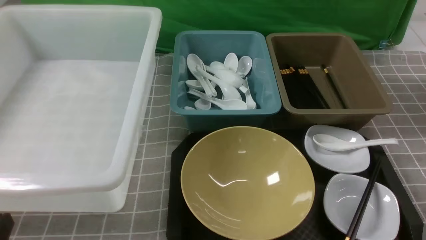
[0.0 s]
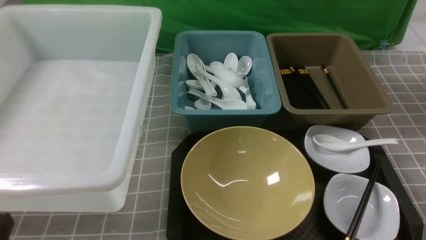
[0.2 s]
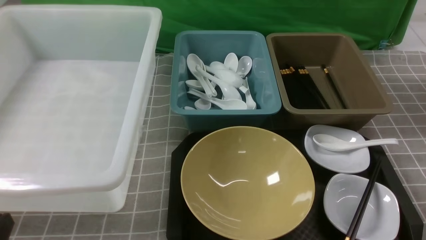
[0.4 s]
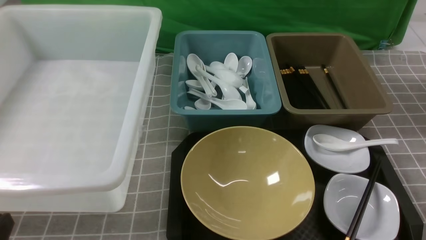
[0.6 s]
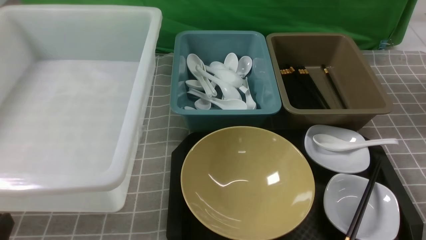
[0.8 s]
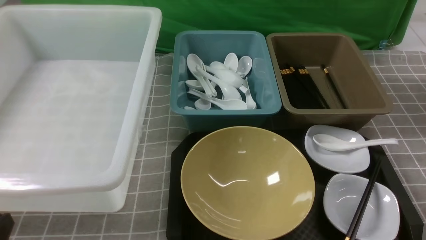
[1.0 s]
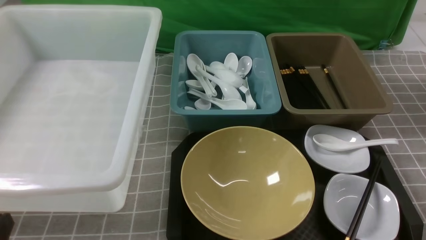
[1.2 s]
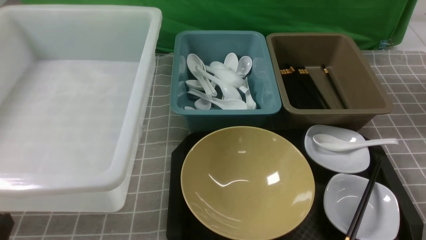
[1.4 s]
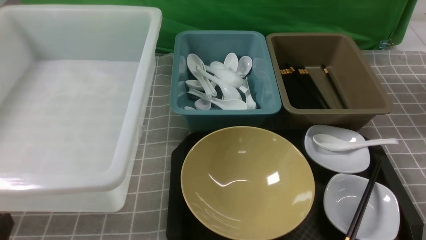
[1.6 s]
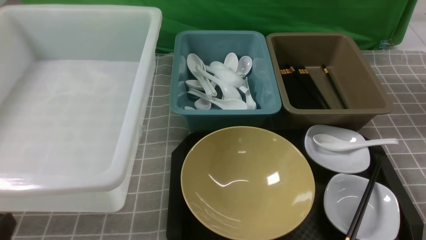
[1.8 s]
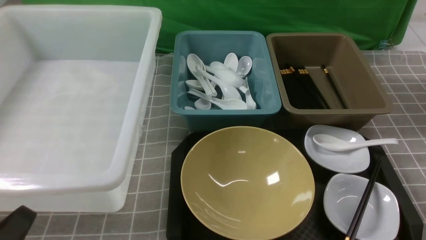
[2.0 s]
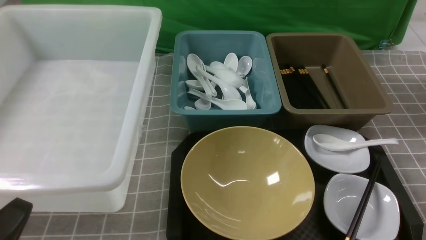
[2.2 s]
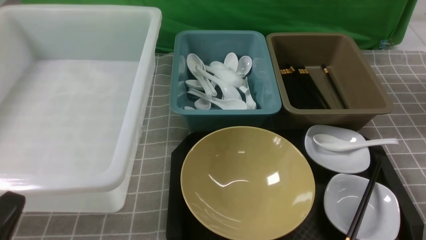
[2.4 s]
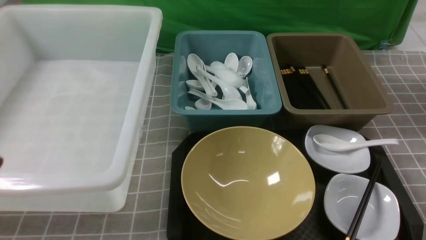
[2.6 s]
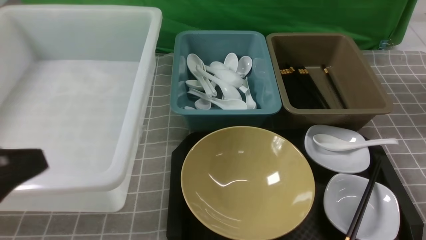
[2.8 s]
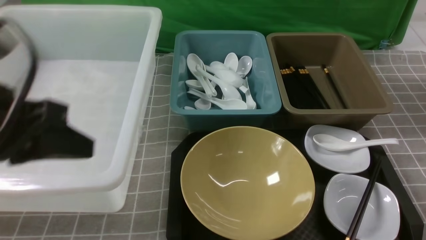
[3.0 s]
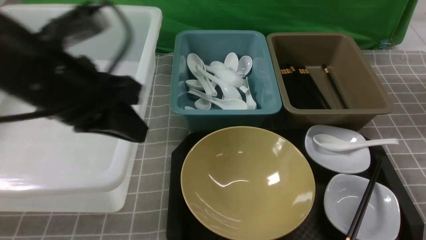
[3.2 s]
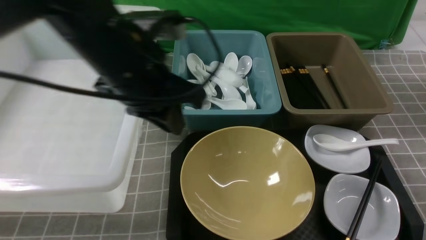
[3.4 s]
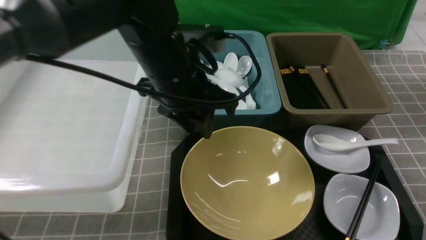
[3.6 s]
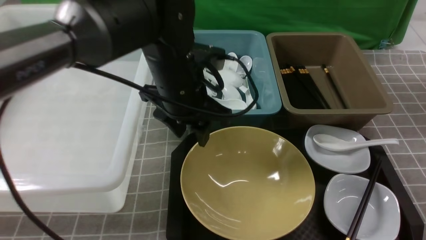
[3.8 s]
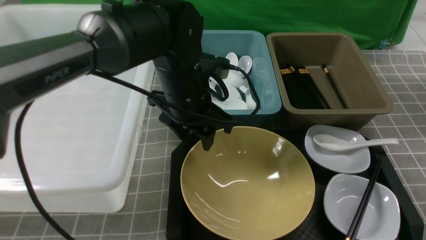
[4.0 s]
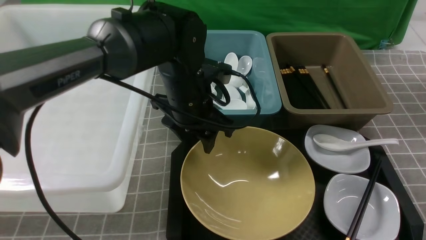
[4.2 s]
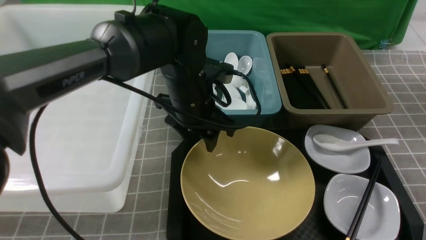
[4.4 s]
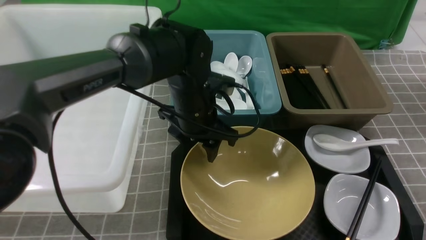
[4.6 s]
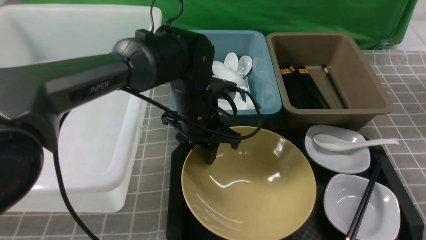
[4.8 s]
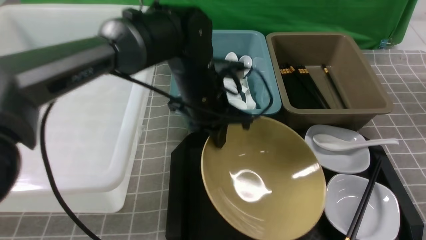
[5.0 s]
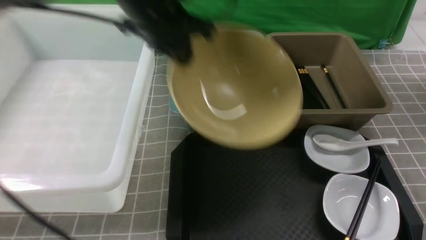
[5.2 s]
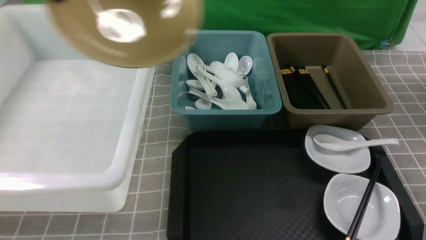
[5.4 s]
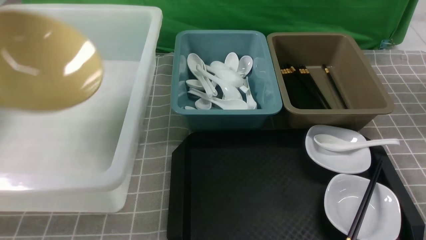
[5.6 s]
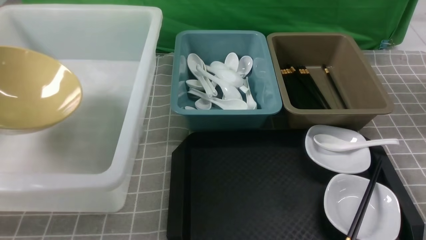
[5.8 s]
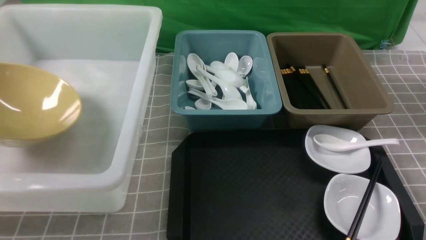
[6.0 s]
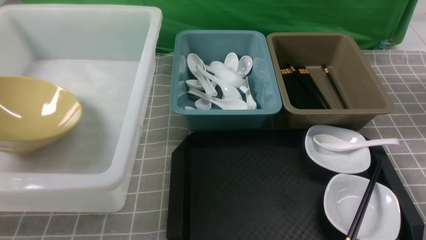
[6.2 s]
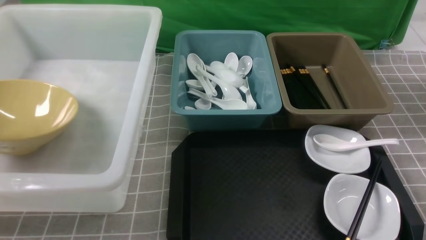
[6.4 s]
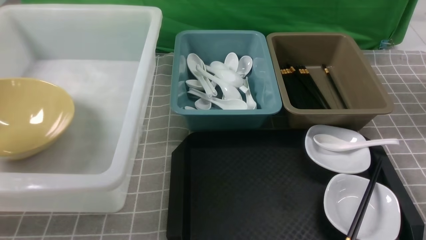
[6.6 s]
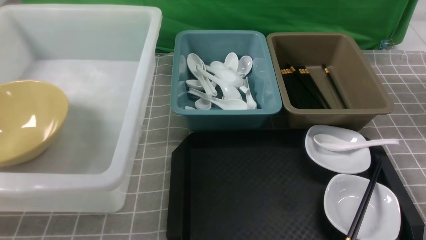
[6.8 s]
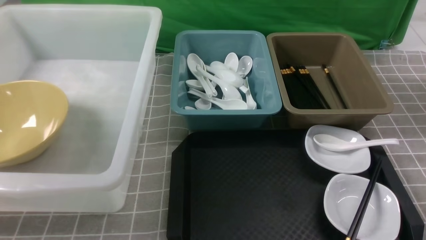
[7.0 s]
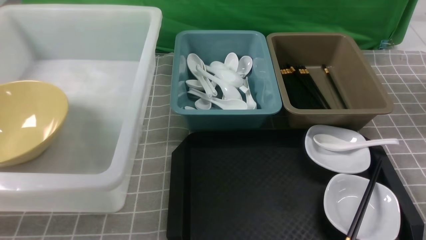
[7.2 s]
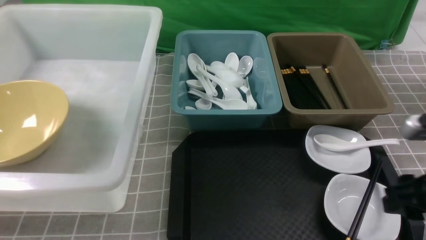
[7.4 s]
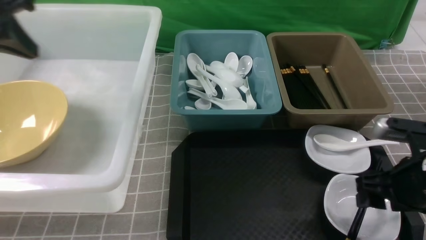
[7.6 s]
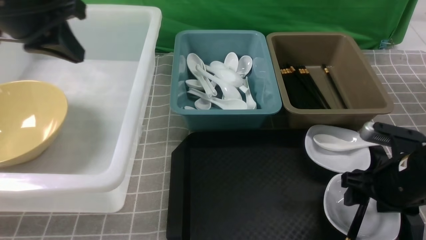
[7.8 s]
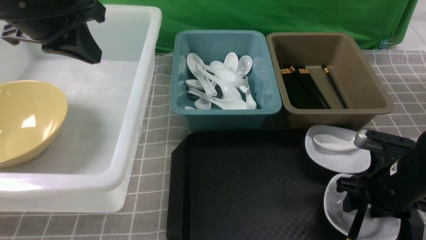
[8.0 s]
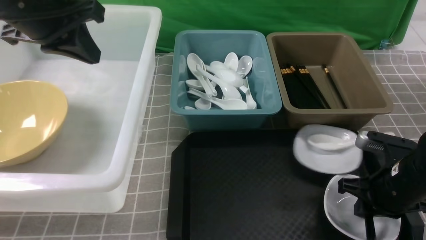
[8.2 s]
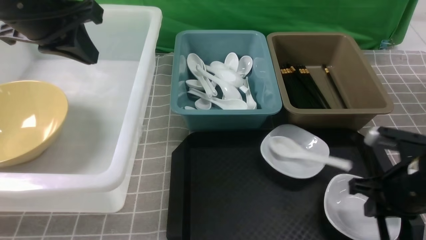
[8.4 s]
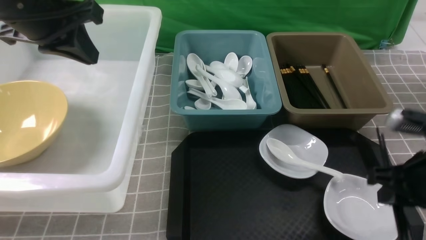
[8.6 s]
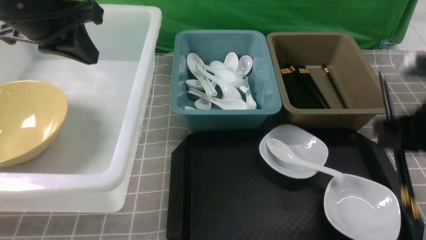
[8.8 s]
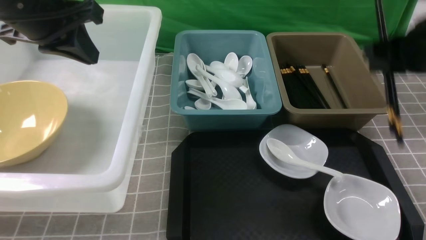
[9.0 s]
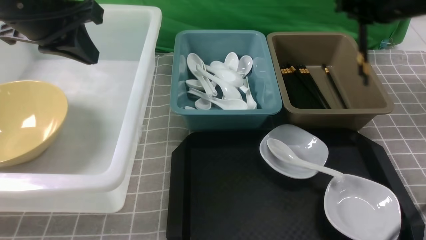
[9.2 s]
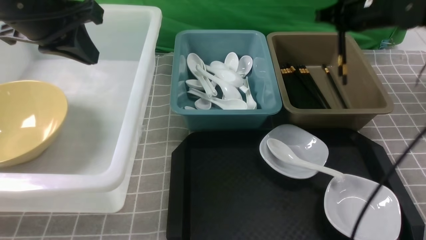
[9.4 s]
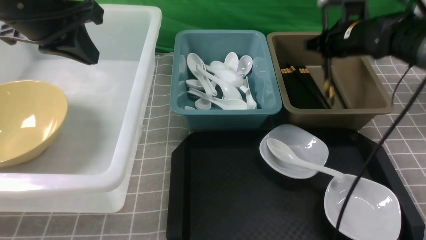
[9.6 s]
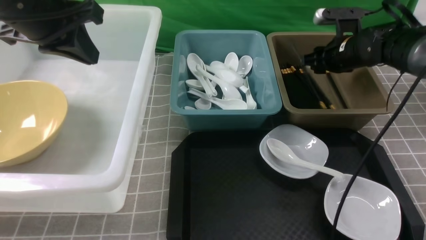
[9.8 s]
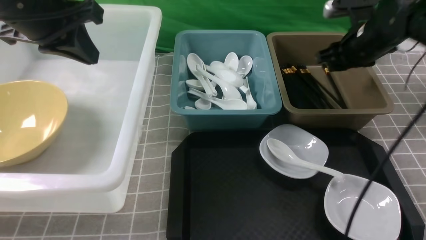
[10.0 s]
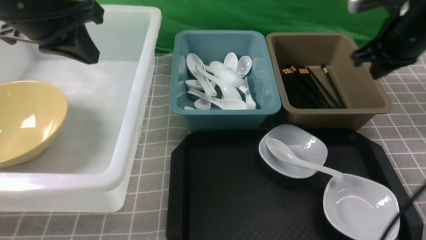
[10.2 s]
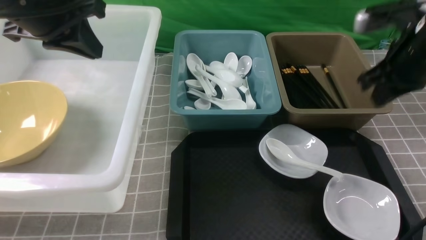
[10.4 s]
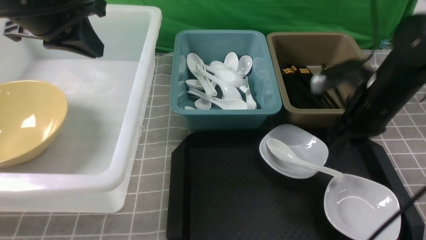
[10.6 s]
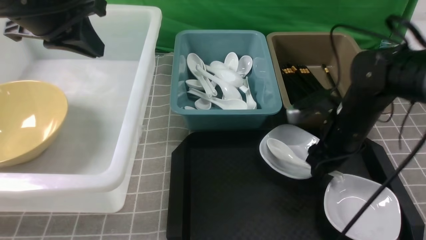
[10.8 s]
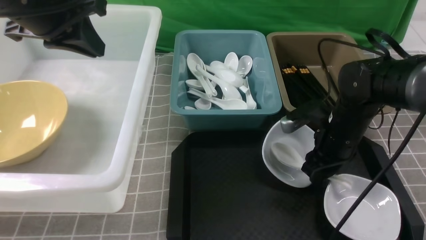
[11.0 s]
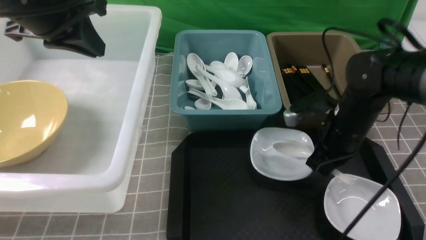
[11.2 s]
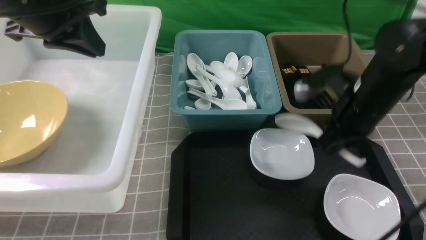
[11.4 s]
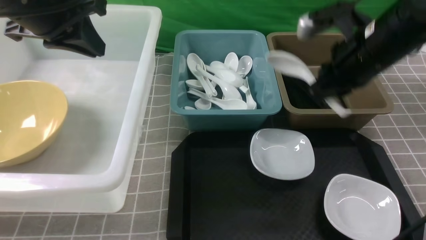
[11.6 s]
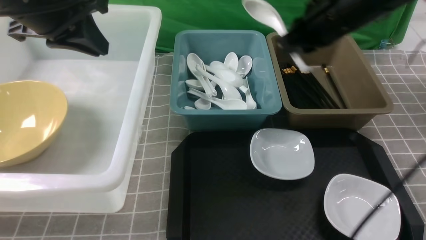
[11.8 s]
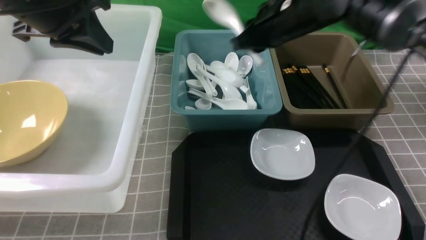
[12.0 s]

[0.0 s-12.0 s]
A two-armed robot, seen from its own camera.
Task of the whole recording: on grey table put chopsticks spoon bowls plates into blue grey white boxes.
Step, 0.0 to 5.0 s: use the left arm to grab the yellow noodle bowl on the left.
Step, 5.2 to 7.0 s: use the left arm to put the noodle bowl into the large storage box on the left.
Step, 7.2 to 8.6 s: use the right arm to grab the chopsticks.
Step, 9.0 to 9.8 s: use the right arm to put the chopsticks into the small storage box on the right.
Step, 10.0 to 11.2 s: use the right arm to grab the soup spoon in the middle.
0.0 to 1.6 s: Both grippers stay about where they are.
1.6 to 3.0 s: The left gripper moves upward and forward, about 20 cm.
3.0 to 4.4 s: The left gripper travels forward, to the right and downward by about 30 cm, and opens its fingers.
4.4 to 6.0 s: The left gripper goes roughly 40 cm to the left, and closes up.
6.0 to 7.6 s: The right gripper is displaced forward and downward by approximately 15 cm, and opens. The left gripper moves to the right and upward, about 15 cm, and opens, then closes again.
7.6 to 9.0 s: The left gripper goes about 5 cm to the right; the right gripper is displaced upward and forward by roughly 15 cm, and closes its fingers.
9.0 to 10.4 s: The right gripper is displaced downward by roughly 5 cm, moves some 15 cm forward and comes back, and opens and closes again.
10.4 to 12.0 s: The right gripper moves to the left and forward, approximately 15 cm, moves roughly 10 cm downward and comes back, and opens and closes again.

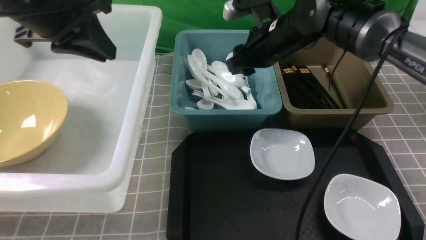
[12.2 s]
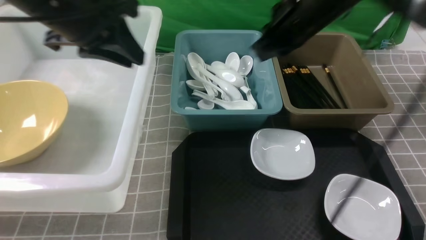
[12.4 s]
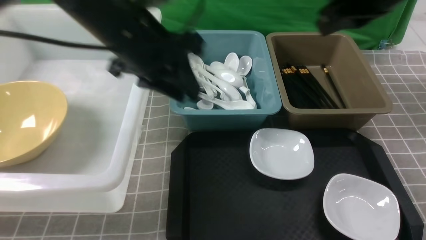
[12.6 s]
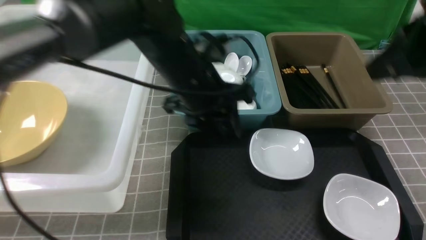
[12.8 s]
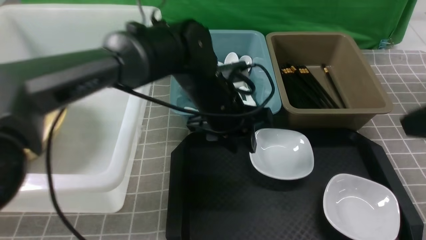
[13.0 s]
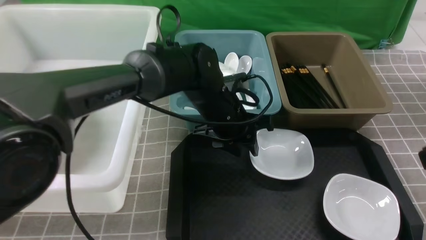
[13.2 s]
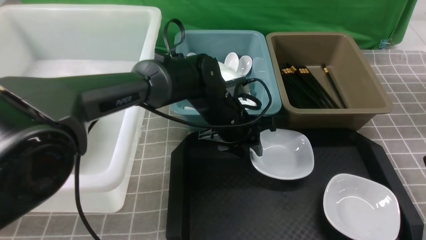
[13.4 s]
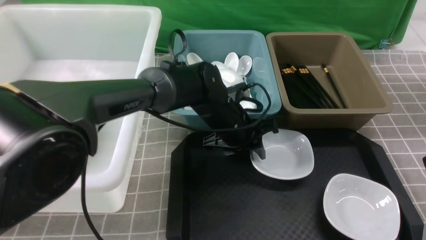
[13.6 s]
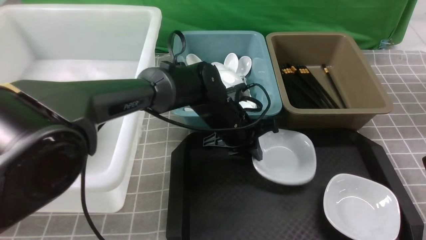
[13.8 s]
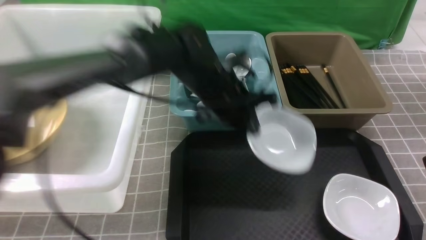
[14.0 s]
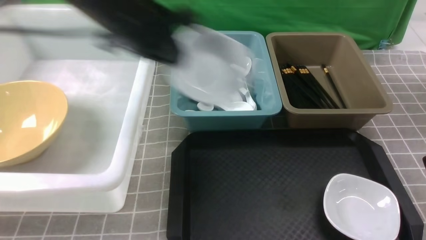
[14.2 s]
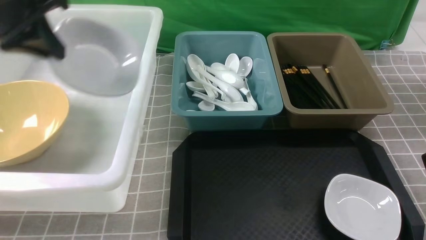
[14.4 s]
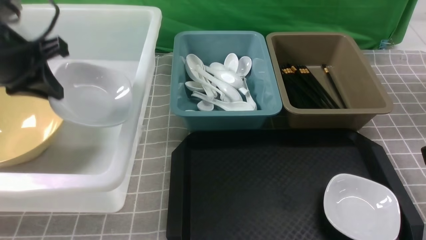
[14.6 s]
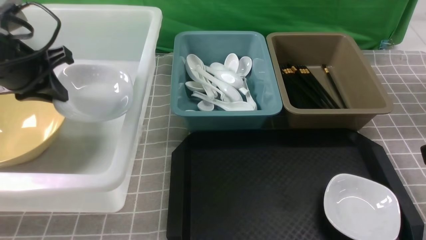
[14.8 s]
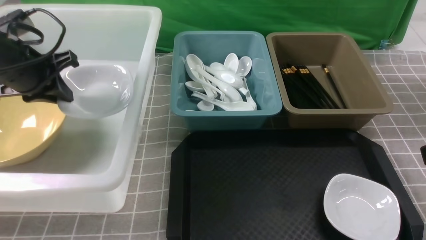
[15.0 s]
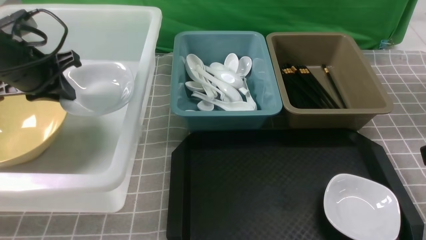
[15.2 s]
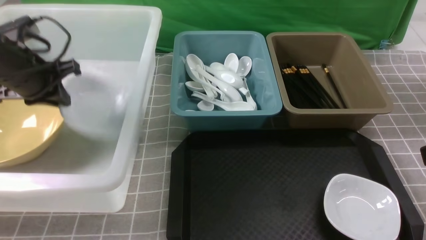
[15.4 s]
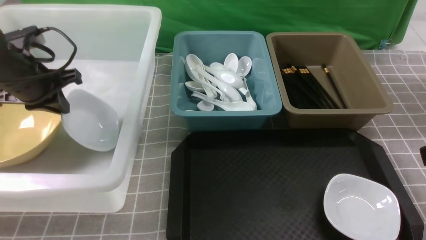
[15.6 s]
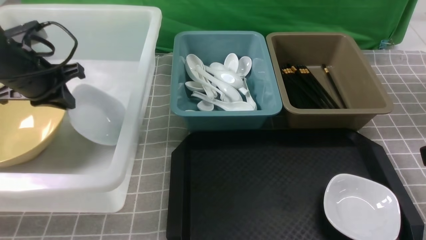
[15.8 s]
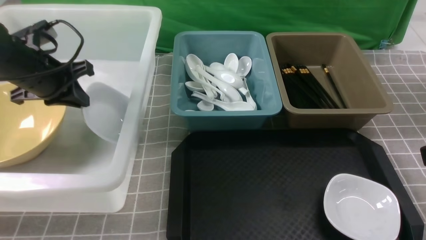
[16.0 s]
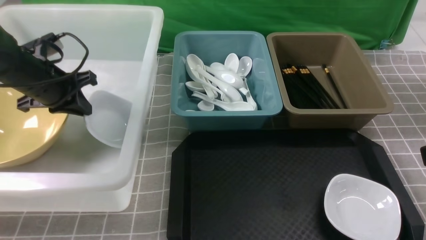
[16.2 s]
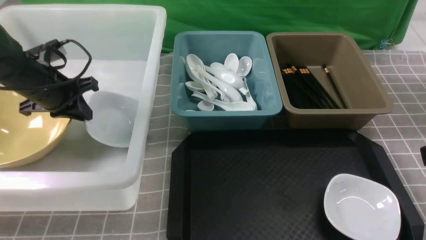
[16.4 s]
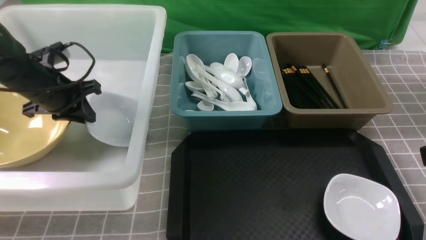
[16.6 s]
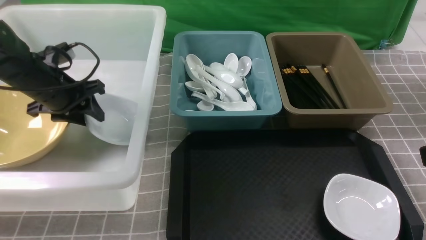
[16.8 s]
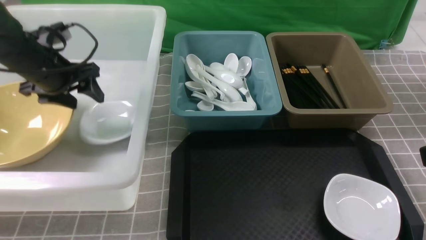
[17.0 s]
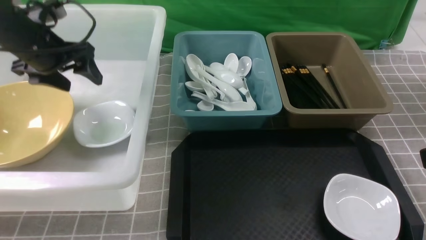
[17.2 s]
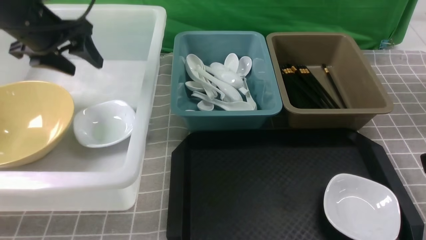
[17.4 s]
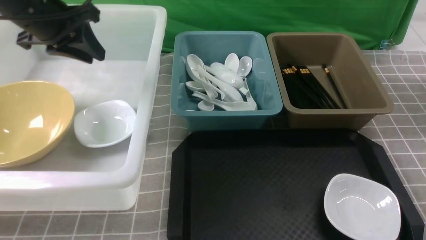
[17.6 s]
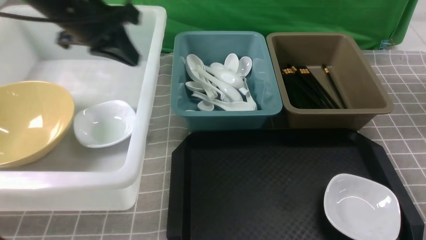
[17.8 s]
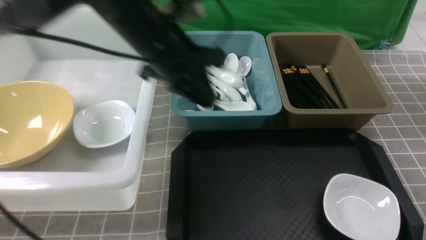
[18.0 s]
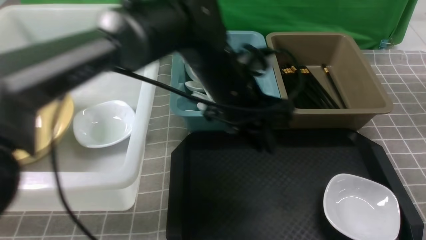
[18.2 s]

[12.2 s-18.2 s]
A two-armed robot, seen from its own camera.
Task of the whole recording: on grey table put chopsticks spoon bowls plates into blue grey white boxes.
Step, 12.4 to 14.0 s: use the left arm to grab the plate.
Step, 14.2 to 16.8 s: use the left arm to put the plate into the large storage box on the left.
12.2 to 13.8 s: The left gripper moves to the right and downward, some 30 cm, and opens and closes again. The right gripper goes roughly 35 cm backward and to the right, and closes up.
13.8 to 15.2 s: The left gripper moves to the left, roughly 30 cm.
15.2 to 16.6 s: The left gripper goes about 5 cm downward.
16.6 to 18.2 s: The right gripper shifts by some 5 cm. The left gripper is displaced to the right by roughly 30 cm, and opens, then closes once more.
